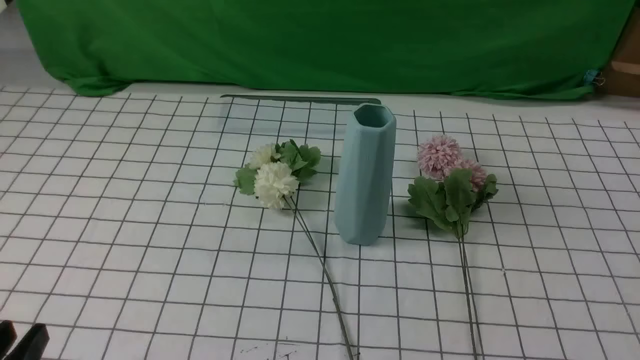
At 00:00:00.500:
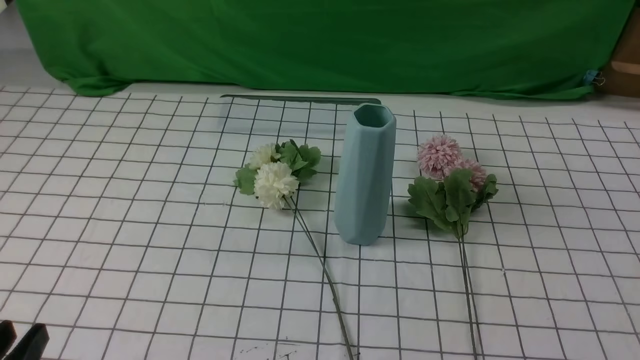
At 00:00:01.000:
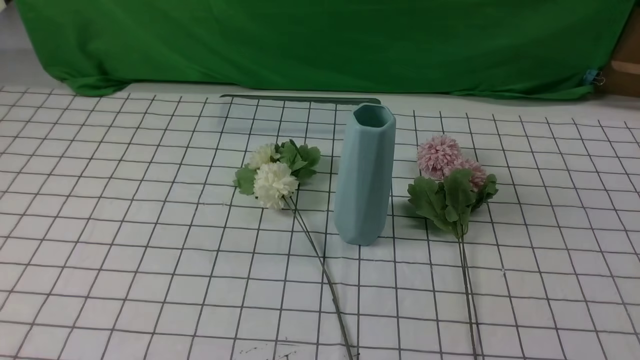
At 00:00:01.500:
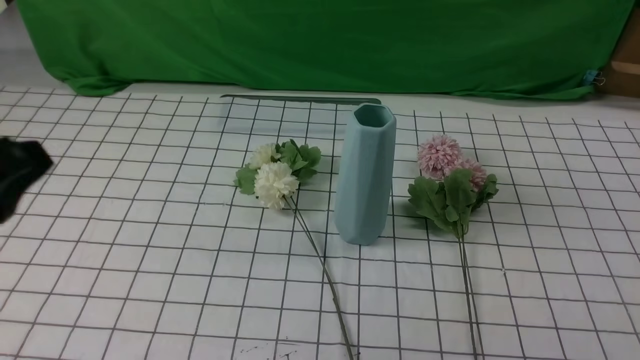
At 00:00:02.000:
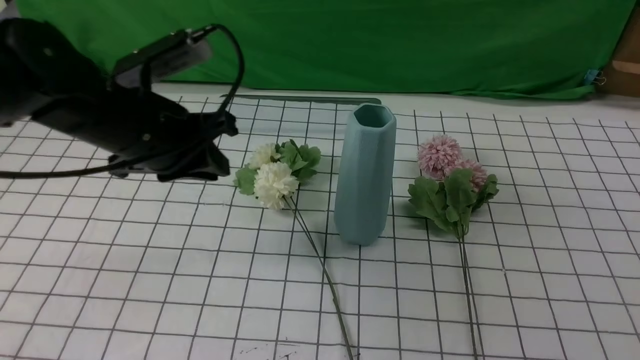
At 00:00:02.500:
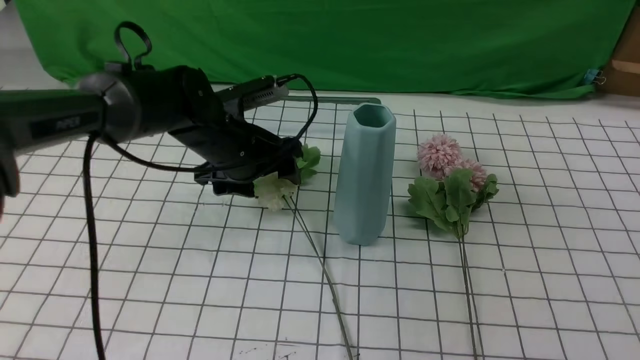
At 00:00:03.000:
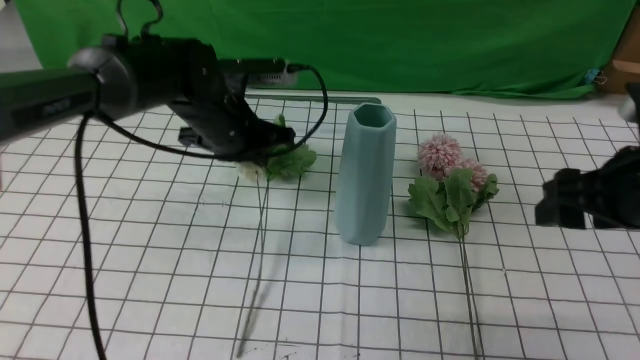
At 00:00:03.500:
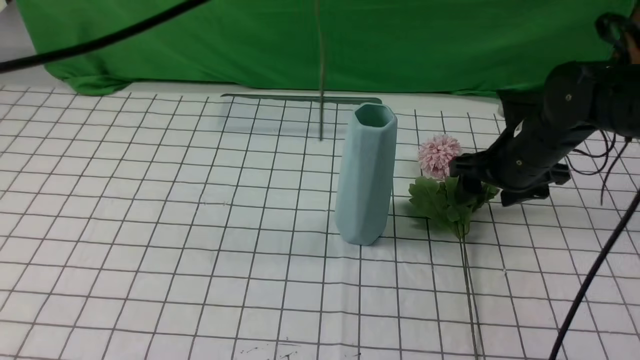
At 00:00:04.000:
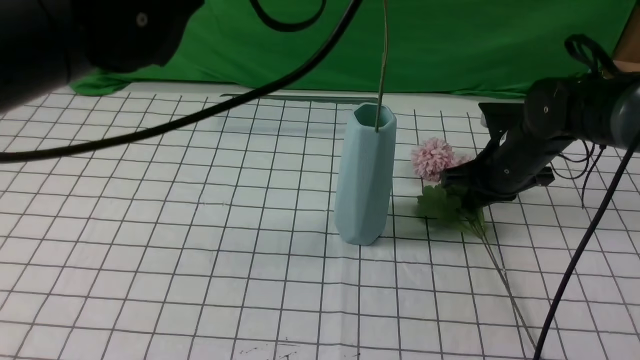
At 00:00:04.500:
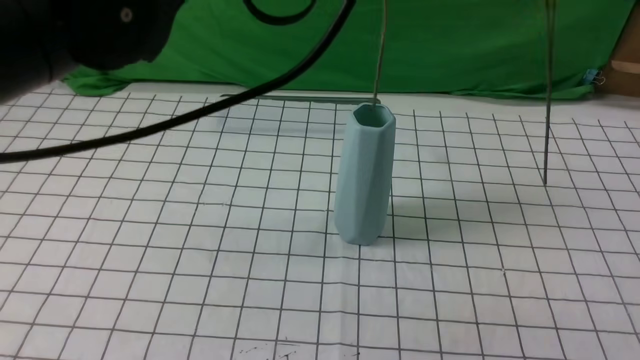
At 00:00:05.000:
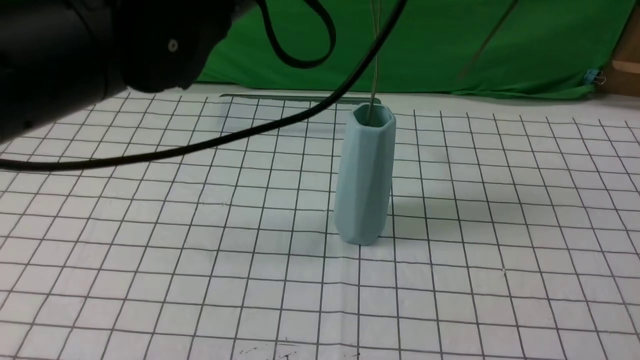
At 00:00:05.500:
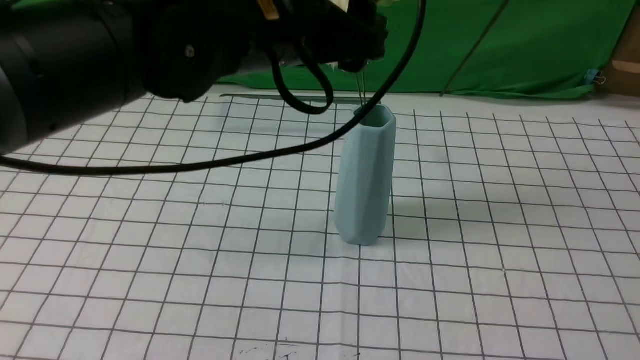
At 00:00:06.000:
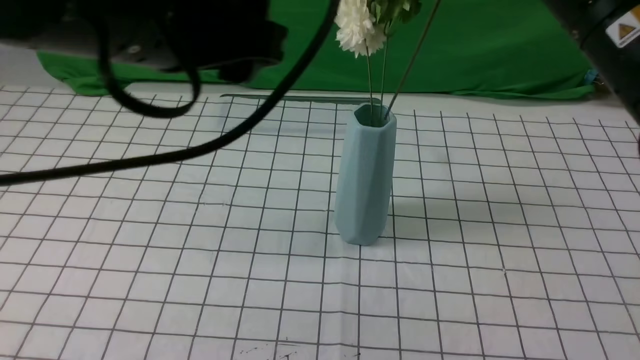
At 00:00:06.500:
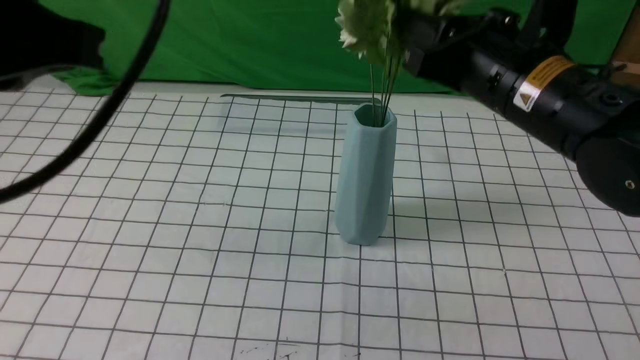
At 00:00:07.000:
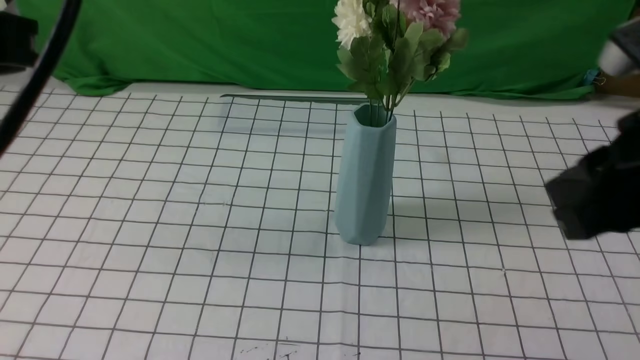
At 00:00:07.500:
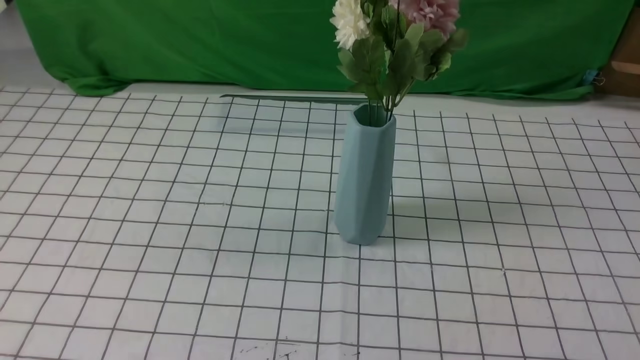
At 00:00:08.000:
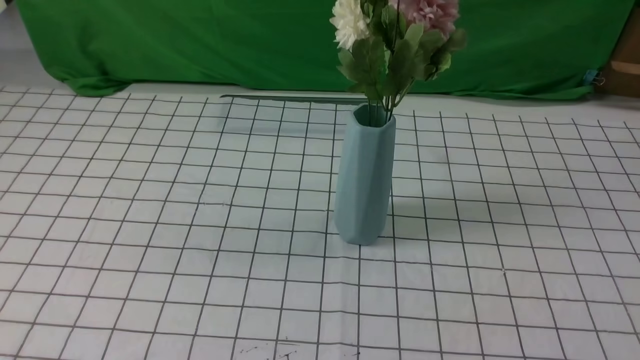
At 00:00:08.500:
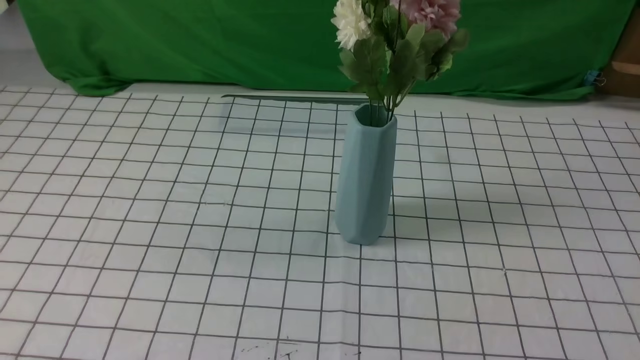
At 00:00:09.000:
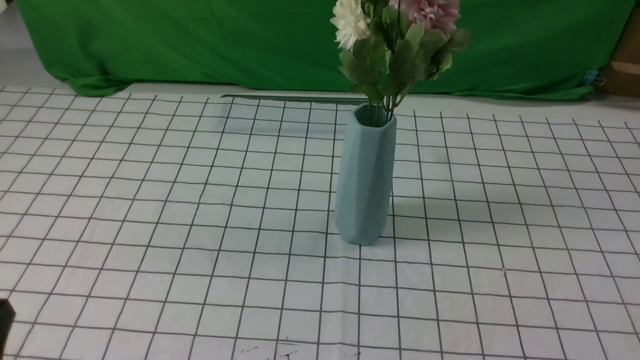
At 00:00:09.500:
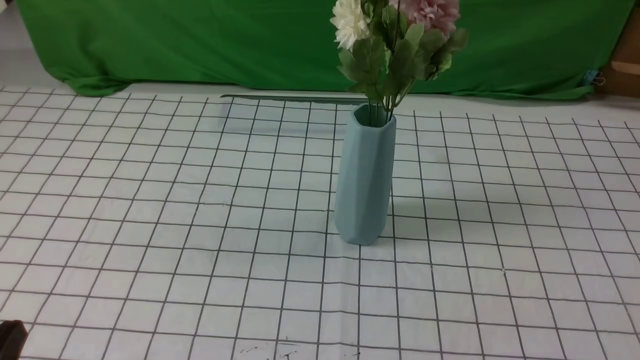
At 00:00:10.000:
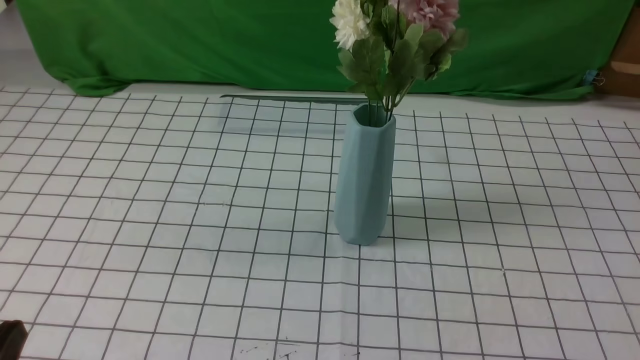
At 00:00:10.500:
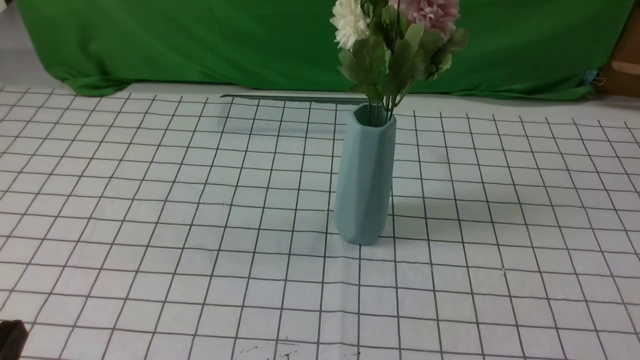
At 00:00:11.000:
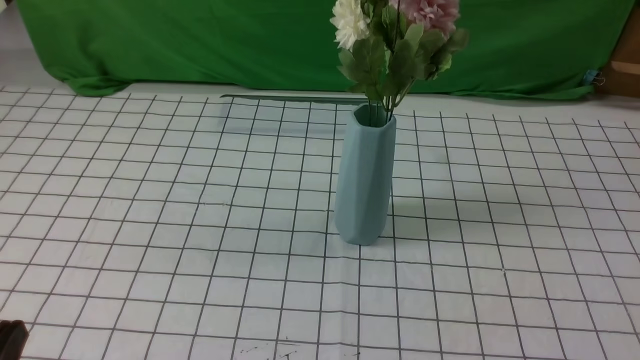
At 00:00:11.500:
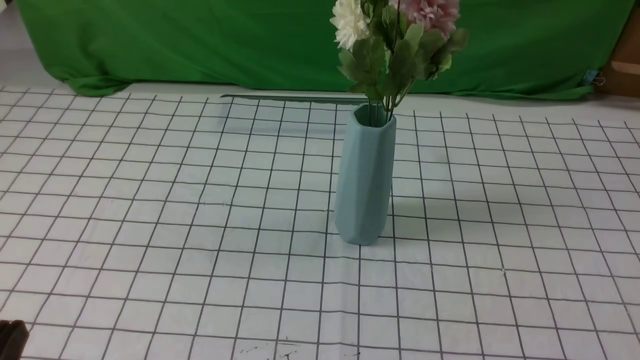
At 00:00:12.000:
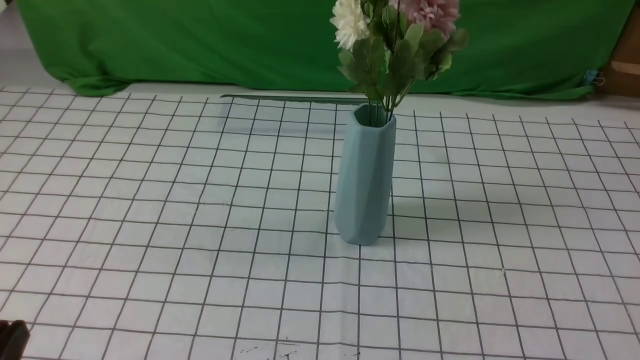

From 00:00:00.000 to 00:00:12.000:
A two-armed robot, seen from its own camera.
Task of the whole recording: insert the flowers into the vase on the table with the white tablecloth.
Step, from 00:00:00.000 to 00:00:06.500: Put the flowers in the vase with both hands.
From 00:00:00.000 to 00:00:02.000: The right gripper heads upward, covering some 10 cm. The left gripper is displaced forward by roughly 30 cm.
From 00:00:02.000 to 00:00:04.000: The left gripper travels upward and to the right by approximately 20 cm, and opens, then closes once more. The right gripper is displaced forward by roughly 35 cm, and opens and closes again.
From 00:00:04.000 to 00:00:06.000: The right gripper shifts some 20 cm upward and backward, while the left gripper travels backward and to the left by approximately 10 cm, and opens up.
From 00:00:06.000 to 00:00:08.000: The left gripper goes roughly 25 cm backward and to the left, and closes its fingers. The right gripper goes approximately 30 cm backward and to the right, and opens, then closes once more.
